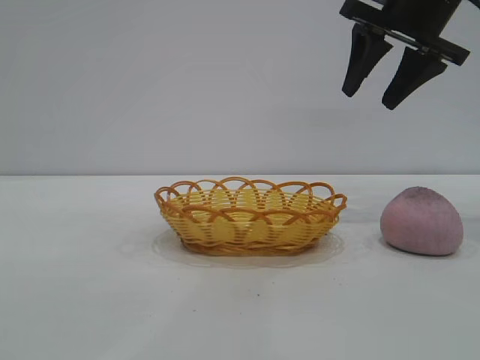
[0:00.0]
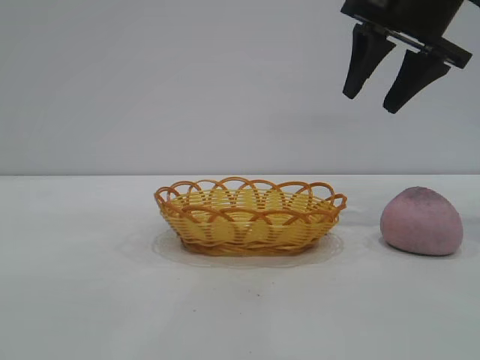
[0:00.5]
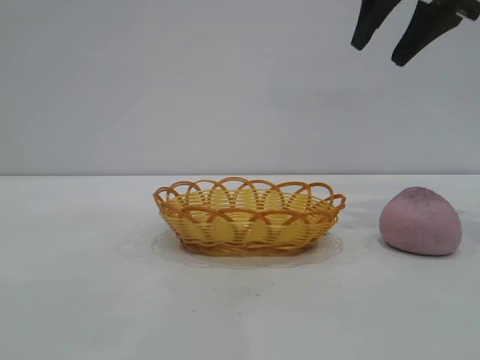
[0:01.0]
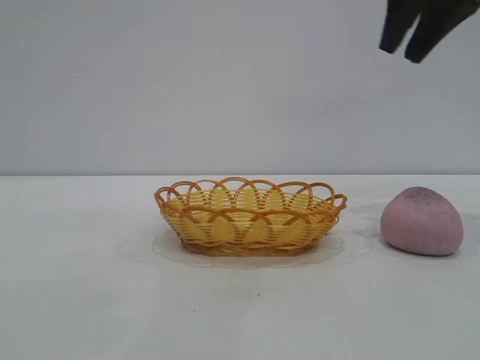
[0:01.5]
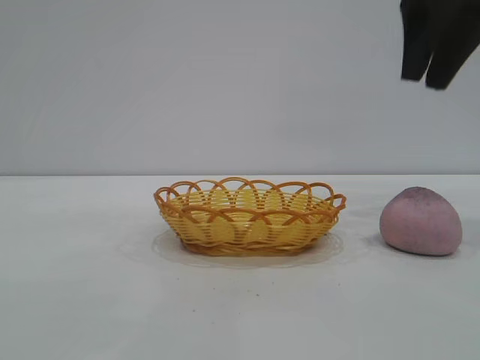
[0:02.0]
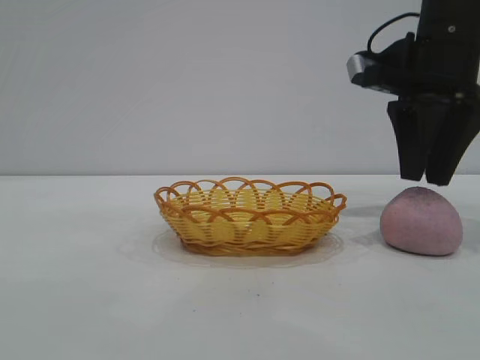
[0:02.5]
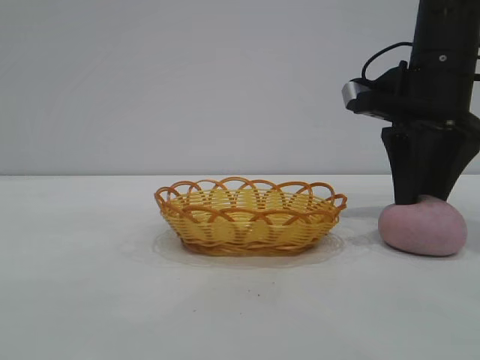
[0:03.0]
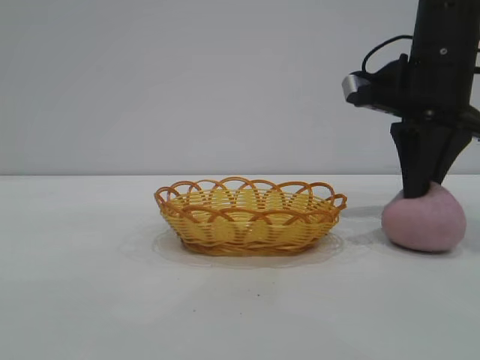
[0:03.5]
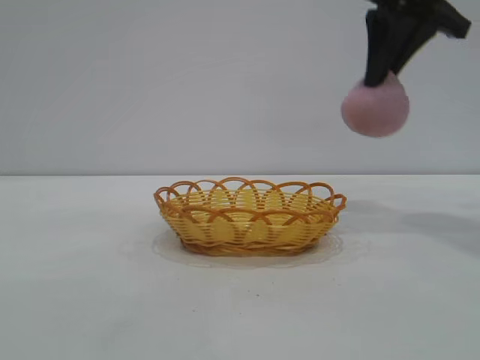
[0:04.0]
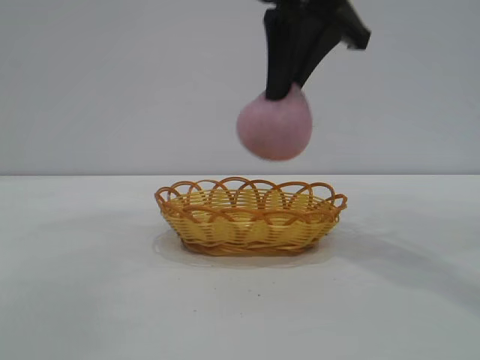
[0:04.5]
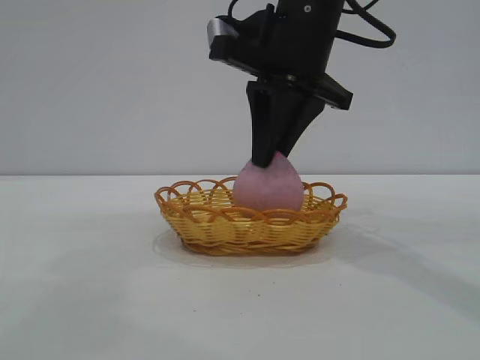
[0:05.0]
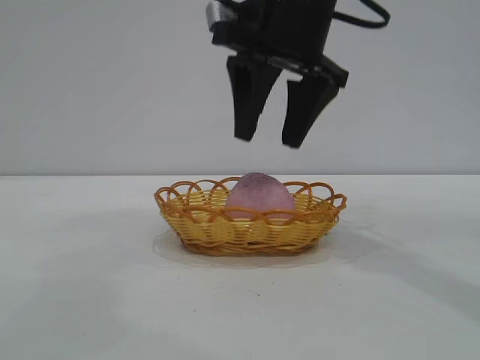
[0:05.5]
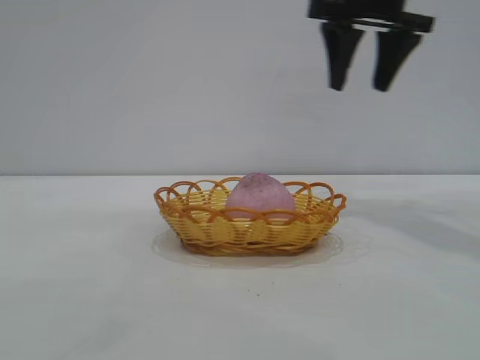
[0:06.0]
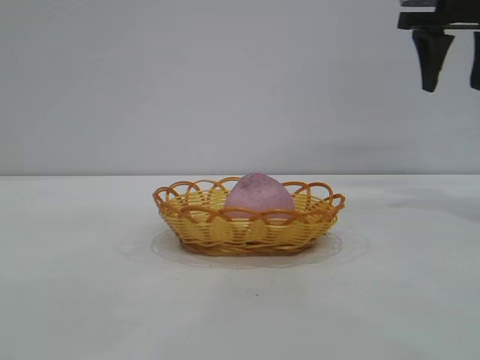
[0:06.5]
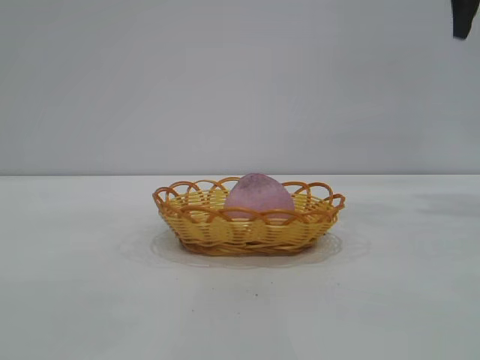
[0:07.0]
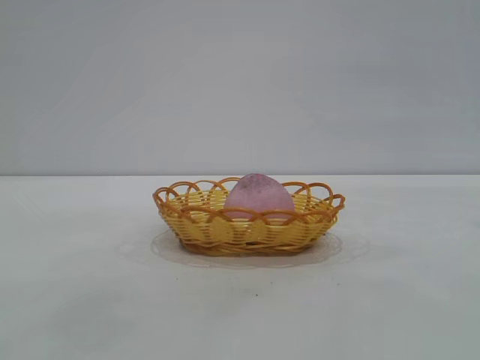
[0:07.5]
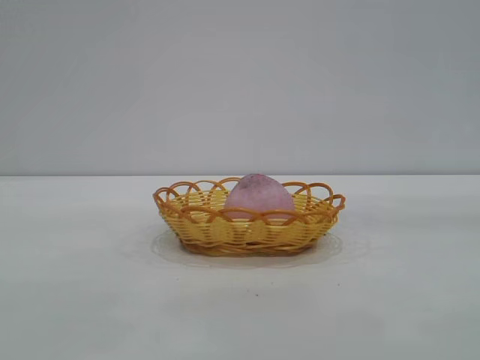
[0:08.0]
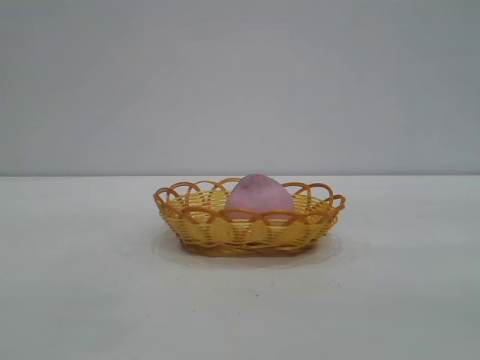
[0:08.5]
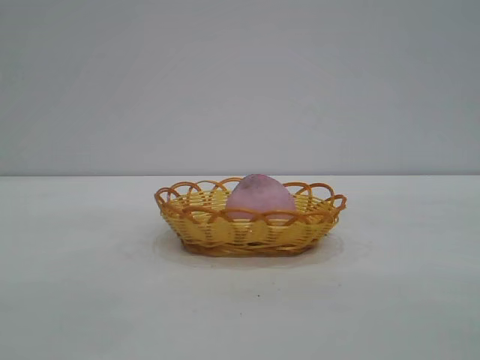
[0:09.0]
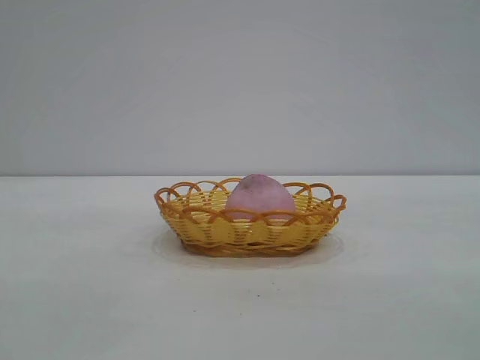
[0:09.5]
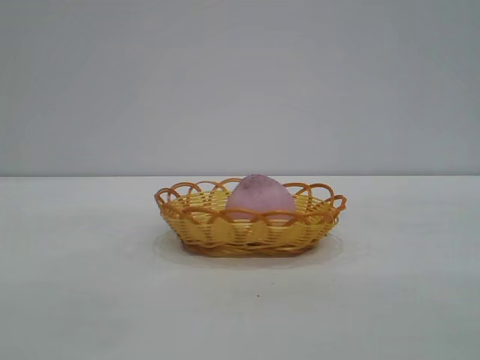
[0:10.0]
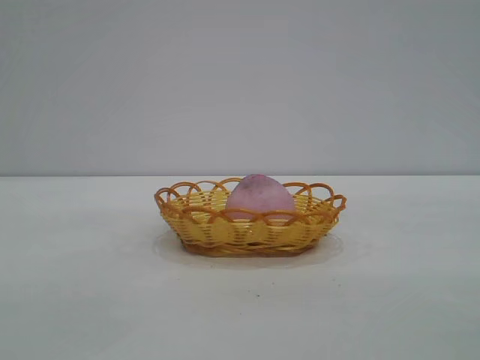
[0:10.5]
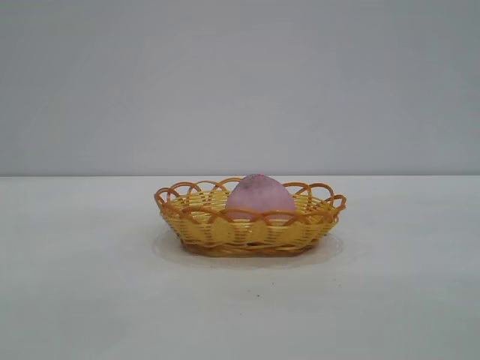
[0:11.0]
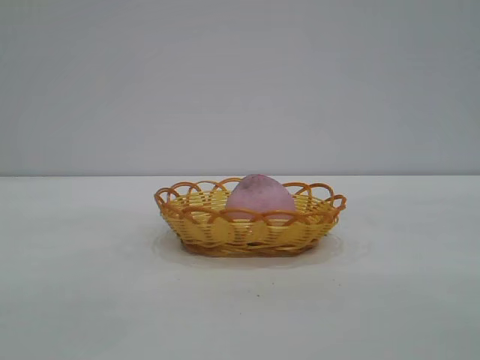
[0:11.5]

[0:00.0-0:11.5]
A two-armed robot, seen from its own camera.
Task of the whole recording: pick up the peach and put it into the basket.
Step, 0:00.0 to 0:03.5: Pick up the peach.
Step, 0:04.0 to 0:05.5: place the peach into the basket.

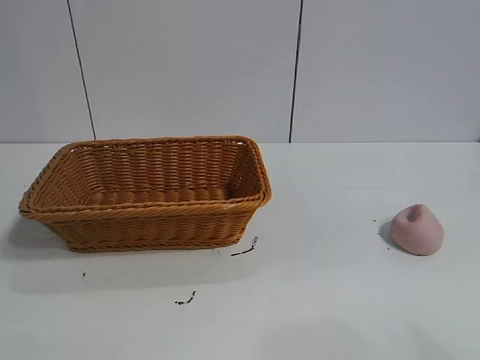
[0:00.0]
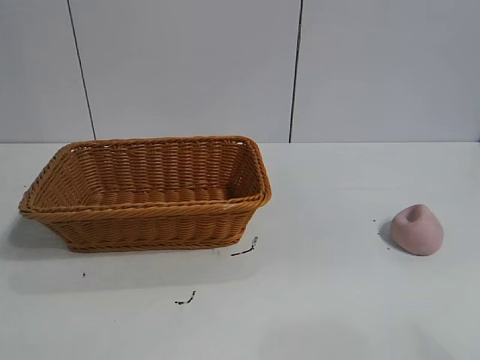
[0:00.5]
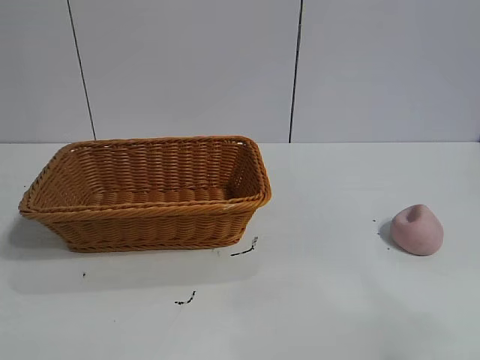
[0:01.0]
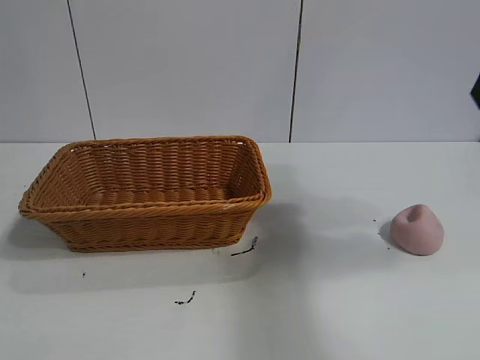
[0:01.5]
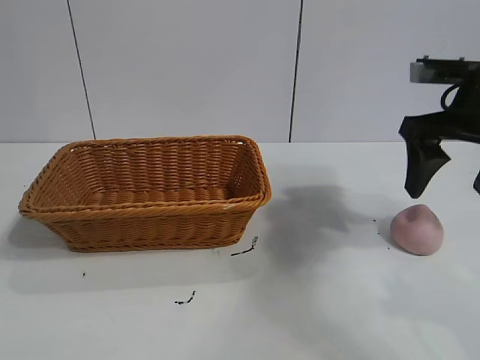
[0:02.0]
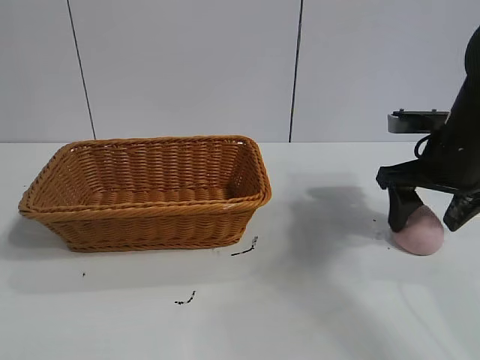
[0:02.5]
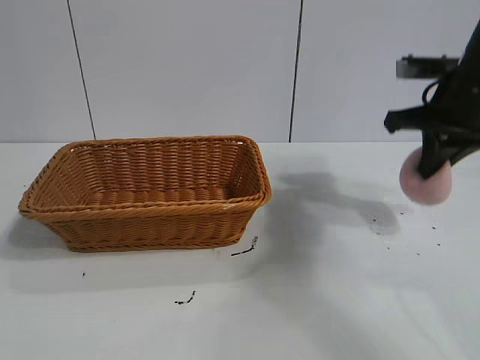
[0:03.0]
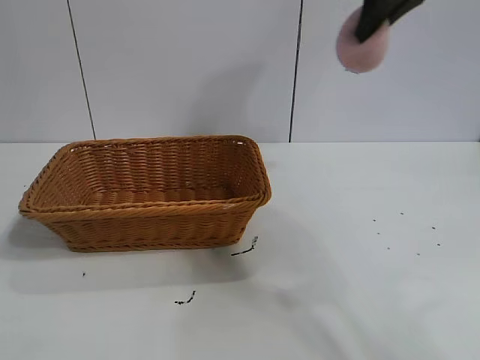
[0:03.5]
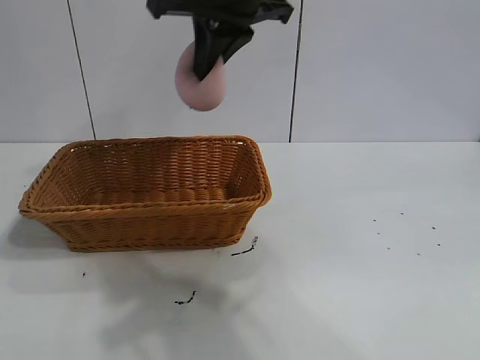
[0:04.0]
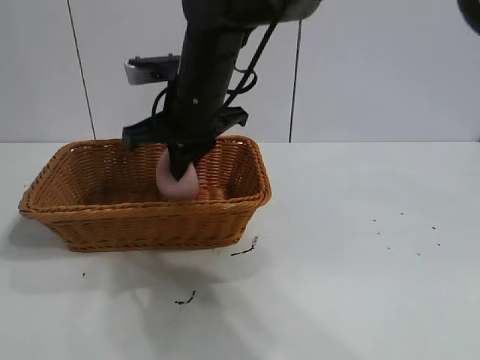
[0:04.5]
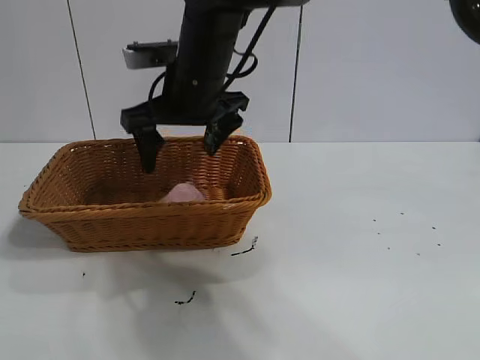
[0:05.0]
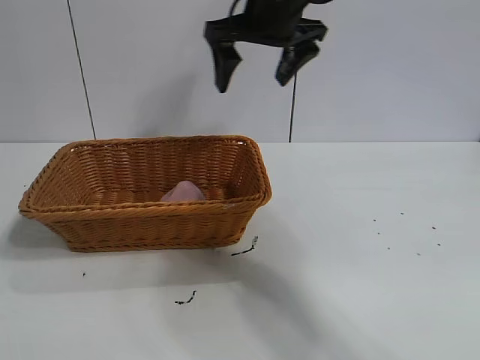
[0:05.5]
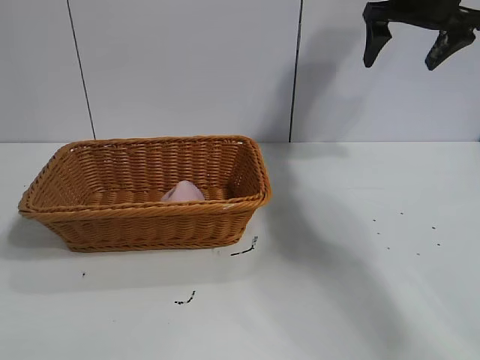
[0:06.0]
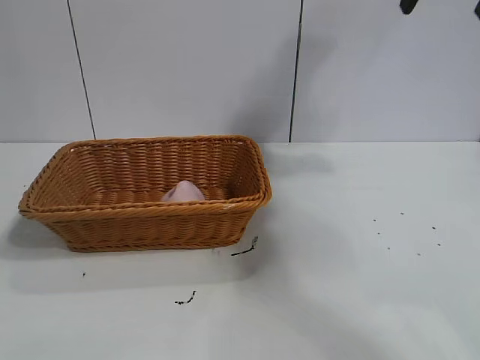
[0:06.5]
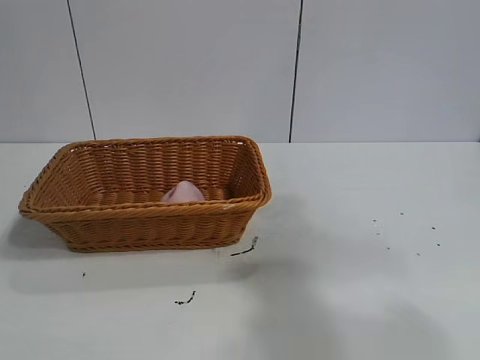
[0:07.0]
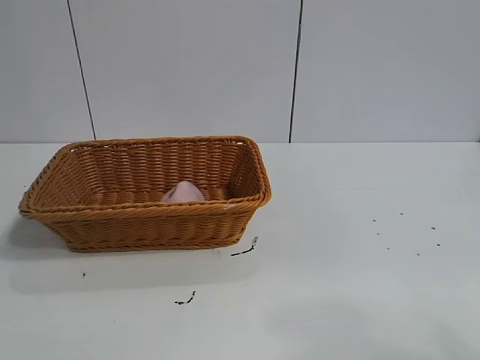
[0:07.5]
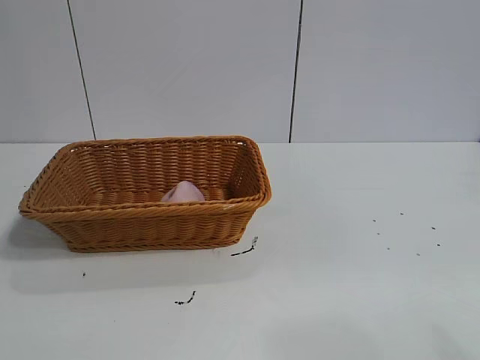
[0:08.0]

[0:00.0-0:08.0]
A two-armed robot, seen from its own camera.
Task of the whole recording: pick up the peach and put it into the basket.
Step, 0:01.0 to 0:02.5: Grasp the peach with right gripper.
Step, 0:03.0 to 0:05.0: Place the peach in the basket with right gripper.
